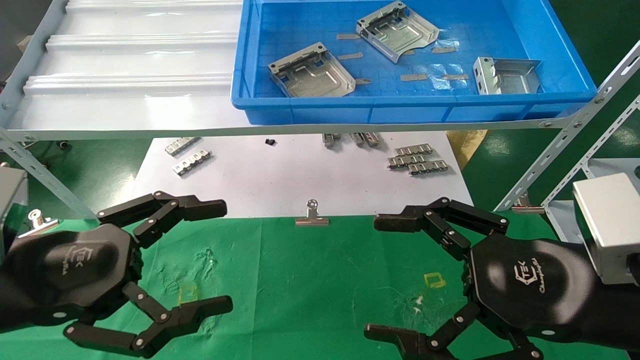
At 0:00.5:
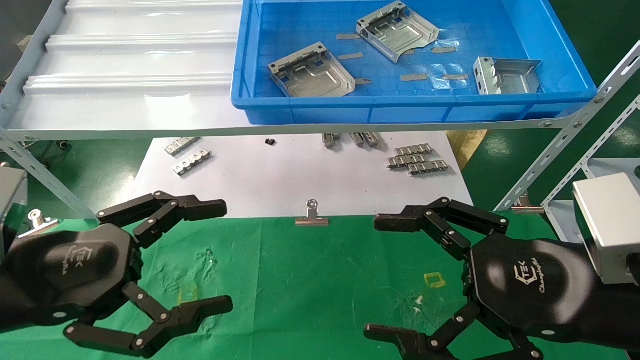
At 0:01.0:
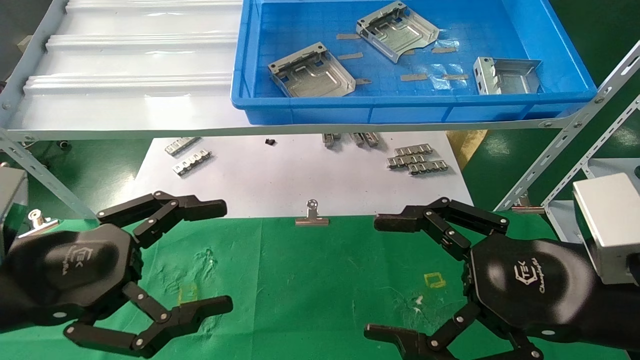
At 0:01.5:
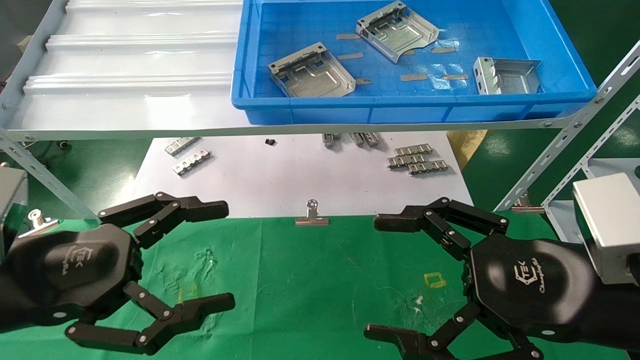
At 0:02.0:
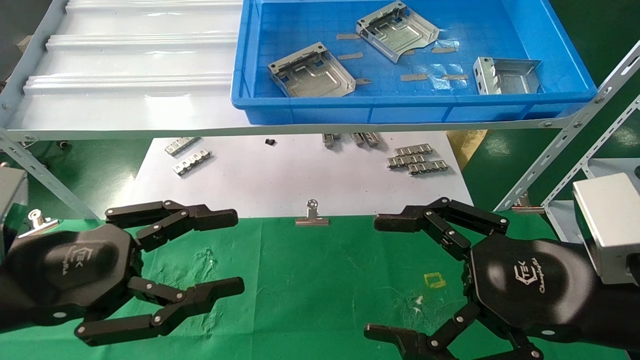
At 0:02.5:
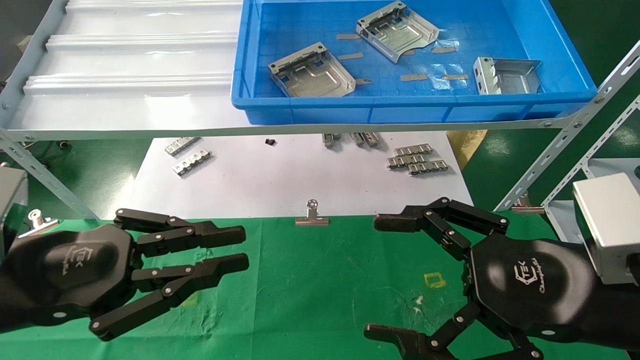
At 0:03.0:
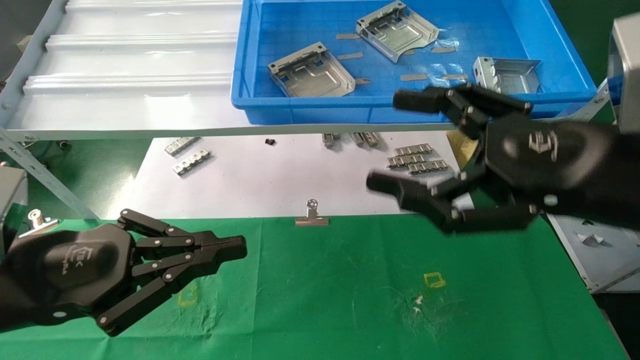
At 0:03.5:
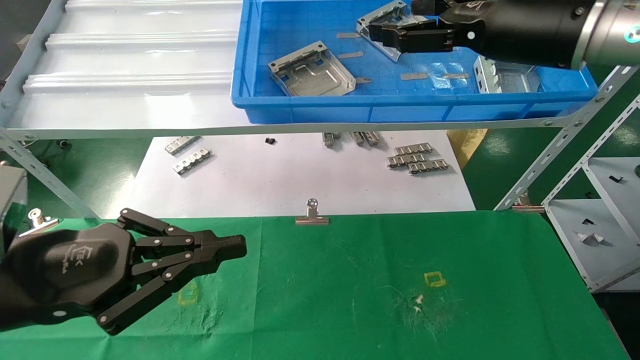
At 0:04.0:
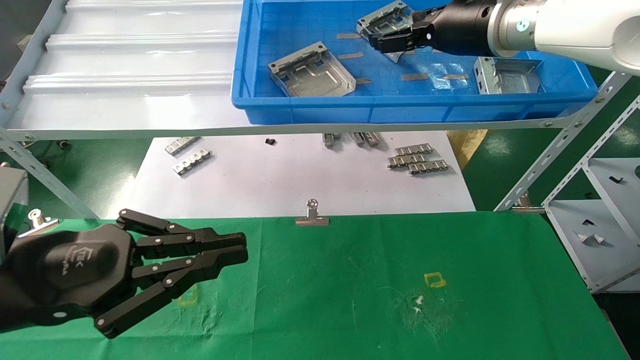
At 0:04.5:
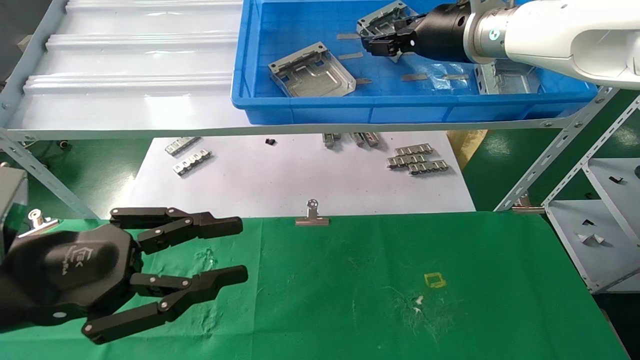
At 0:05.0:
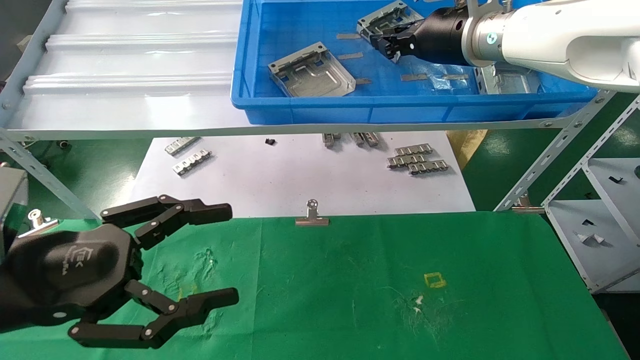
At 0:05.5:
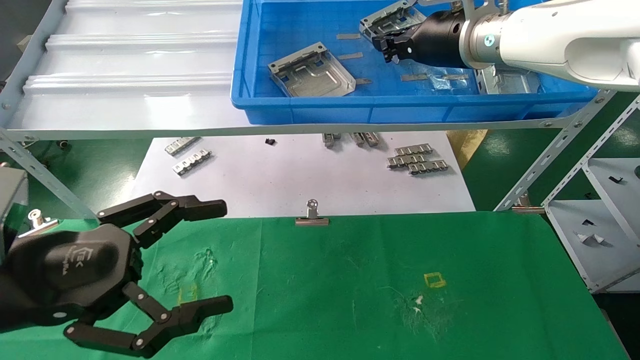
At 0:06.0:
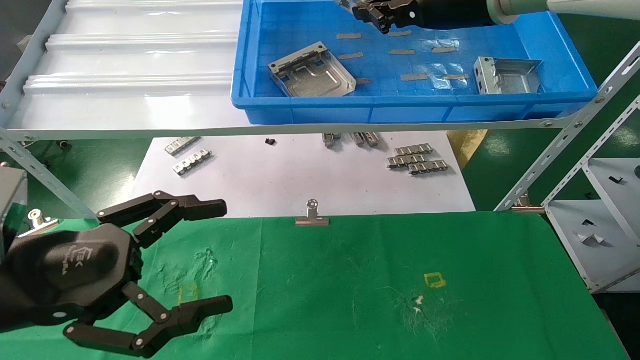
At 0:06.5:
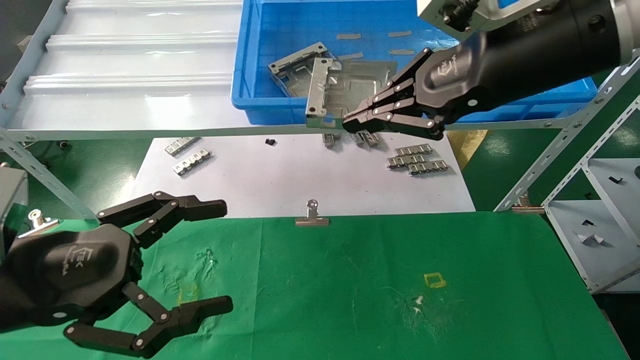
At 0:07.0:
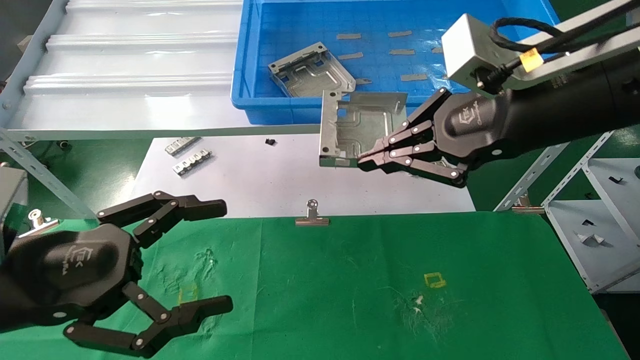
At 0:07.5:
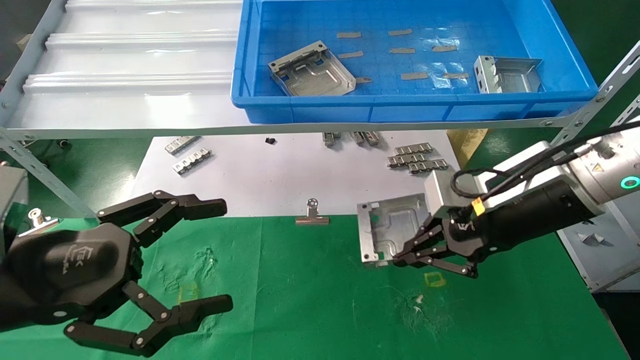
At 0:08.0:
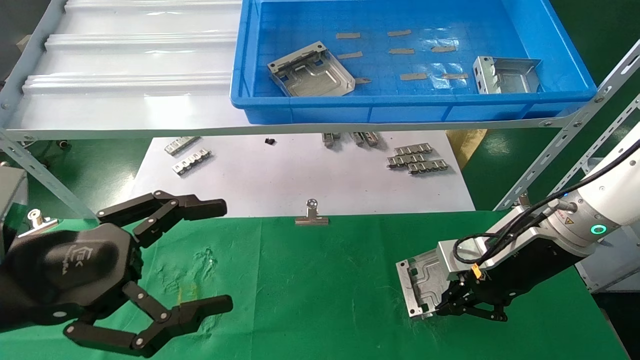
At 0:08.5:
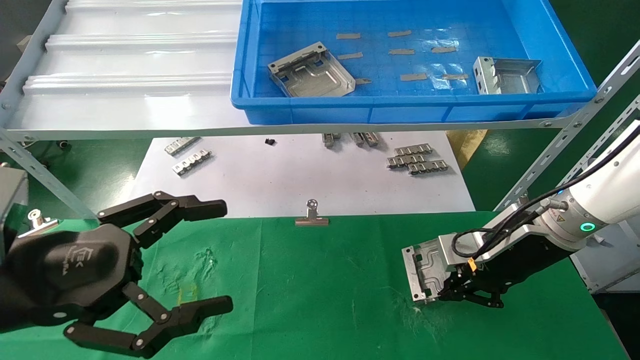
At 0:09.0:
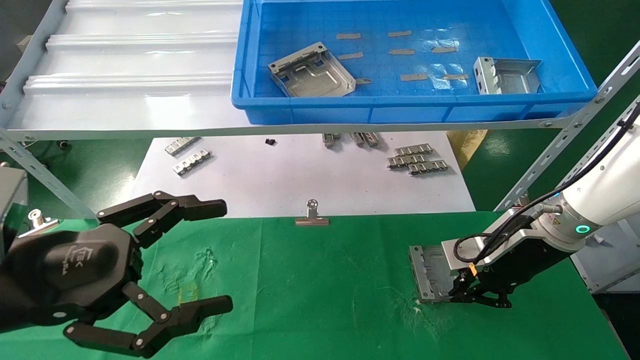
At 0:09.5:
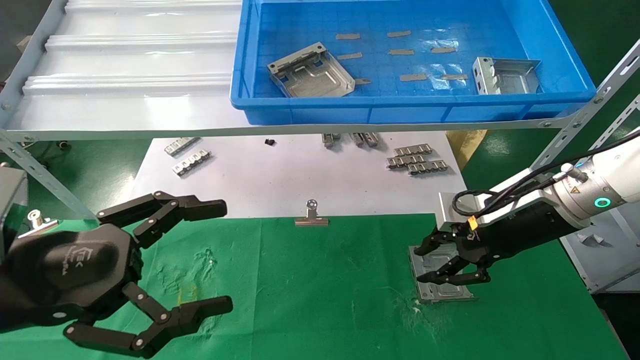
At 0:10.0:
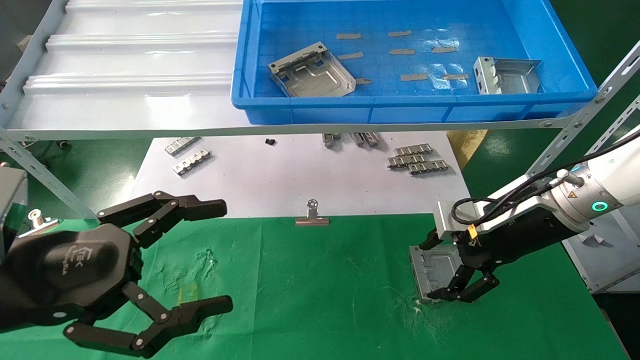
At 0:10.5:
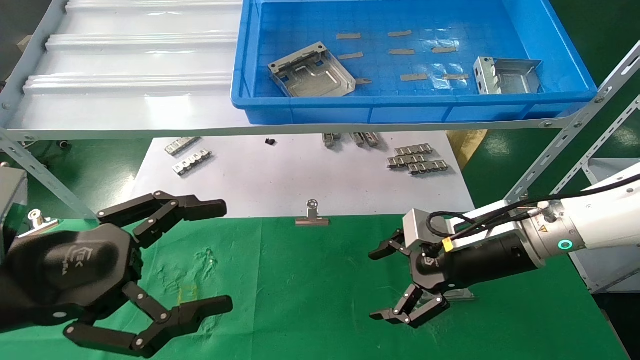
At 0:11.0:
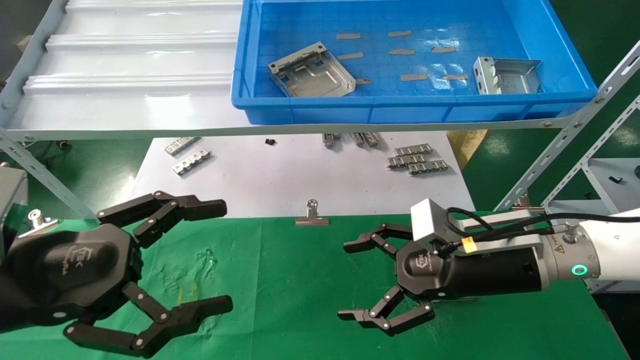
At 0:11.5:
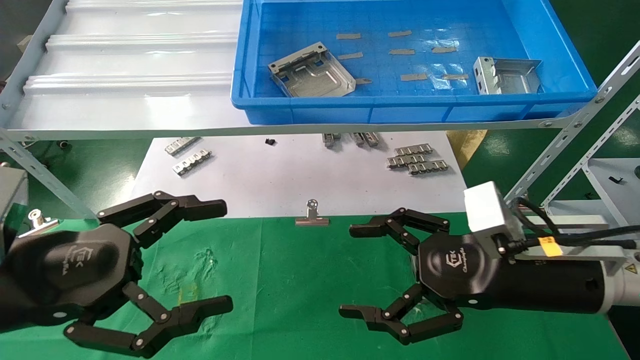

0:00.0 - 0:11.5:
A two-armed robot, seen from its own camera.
Task of the whole recording: use the mechanical arm to pick up the parts and place them on the table.
Step, 0:02.5 - 0:06.5: Pick up the hard drive bracket from the feeding area.
Step, 0:07.0 - 0:09.5: Place the hard drive bracket into the box.
0:00.0 - 0:02.0: Both grippers stay put.
0:02.0 - 0:04.0: The left gripper closes up, while the right gripper shifts about 30 cm forward and upward.
0:04.0 - 0:06.0: The right gripper changes place by roughly 5 cm, and closes up; the left gripper opens its fingers.
0:06.0 - 0:07.5: The right gripper travels downward and backward by approximately 20 cm.
0:07.5 - 0:09.5: The right gripper changes place by about 5 cm.
0:09.5 - 0:11.5: The right gripper shifts some 10 cm backward, and opens its fingers.
